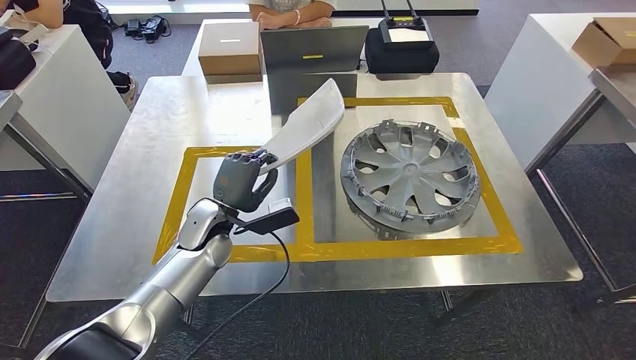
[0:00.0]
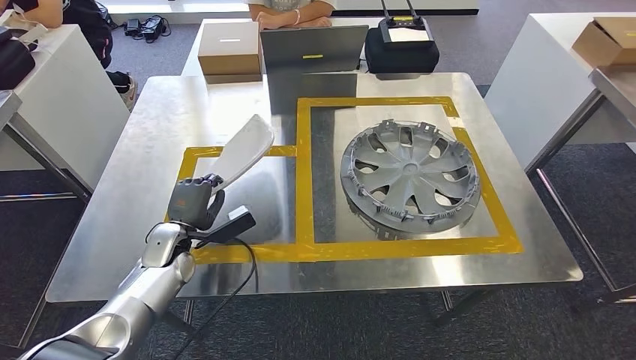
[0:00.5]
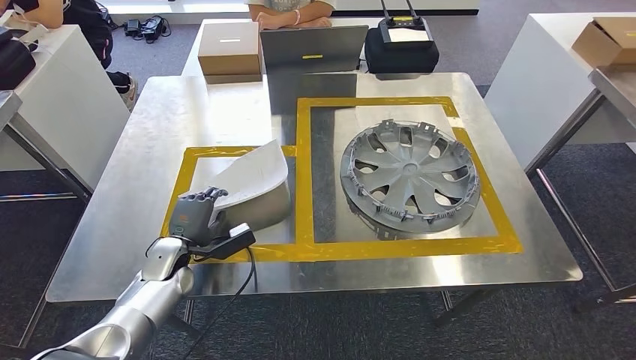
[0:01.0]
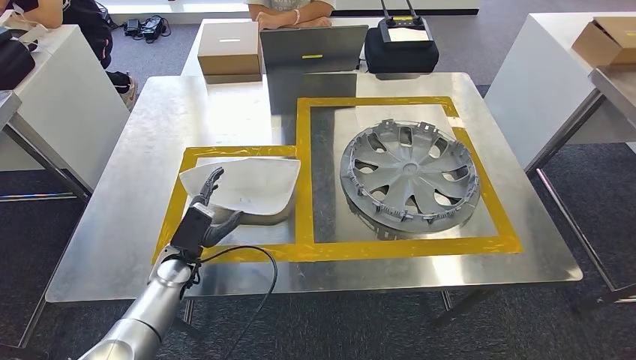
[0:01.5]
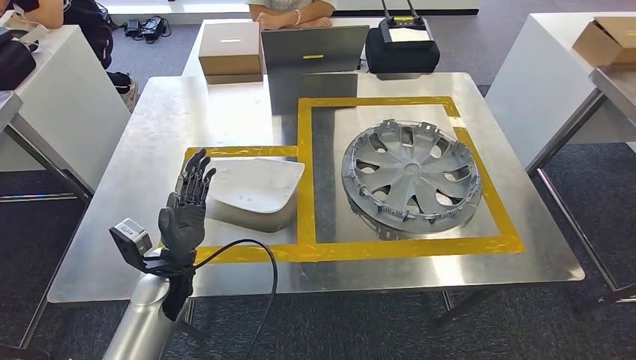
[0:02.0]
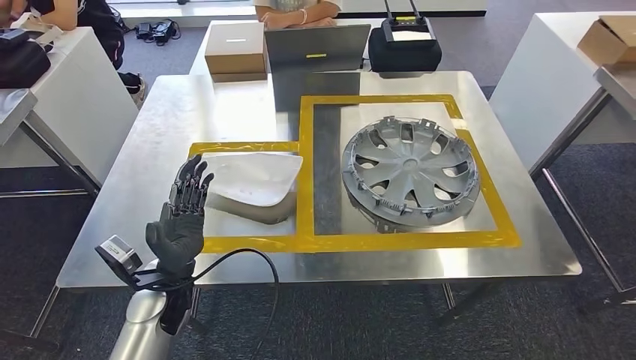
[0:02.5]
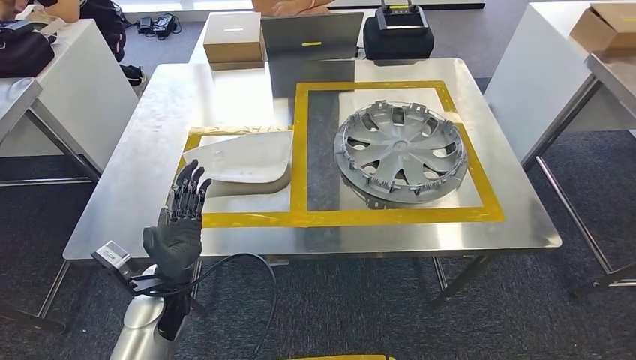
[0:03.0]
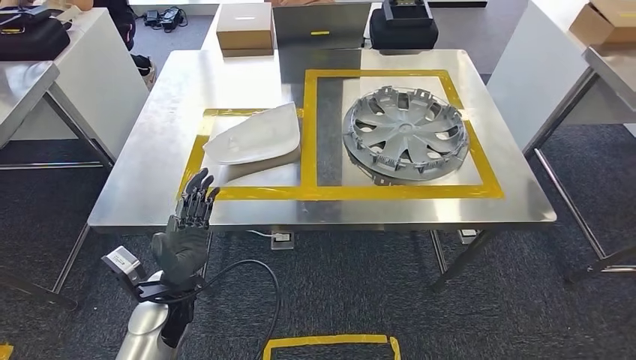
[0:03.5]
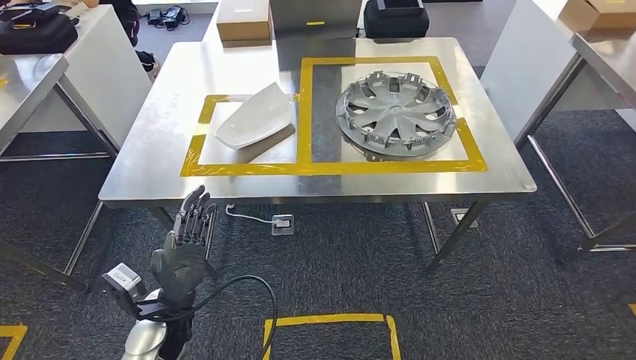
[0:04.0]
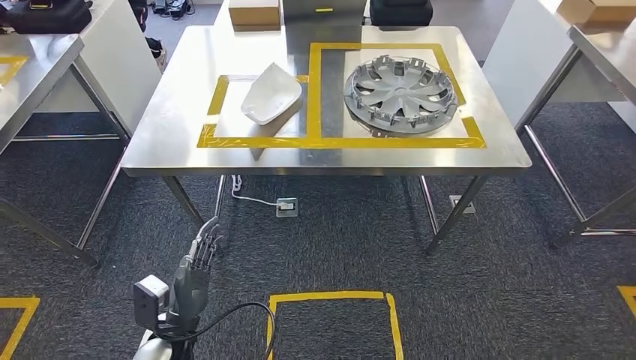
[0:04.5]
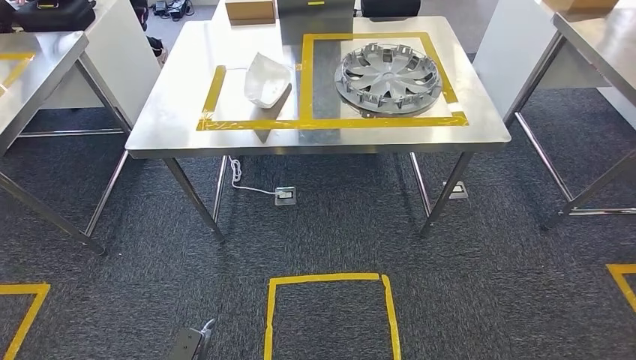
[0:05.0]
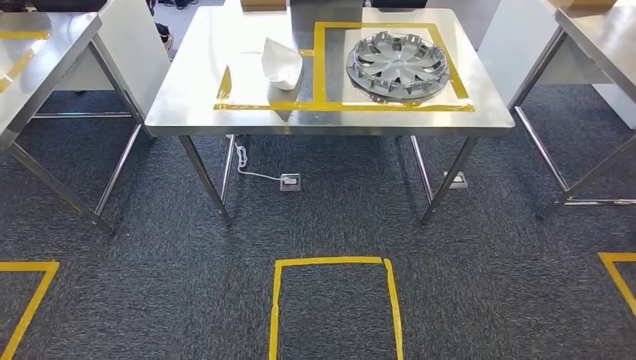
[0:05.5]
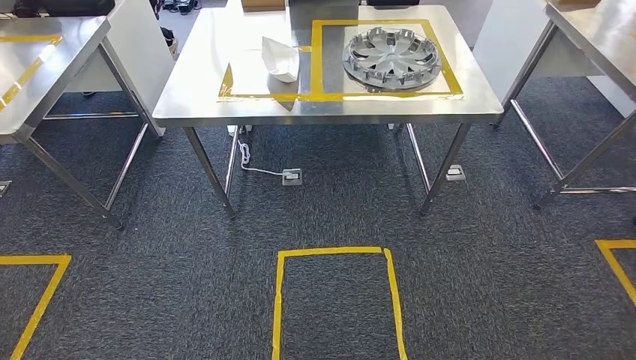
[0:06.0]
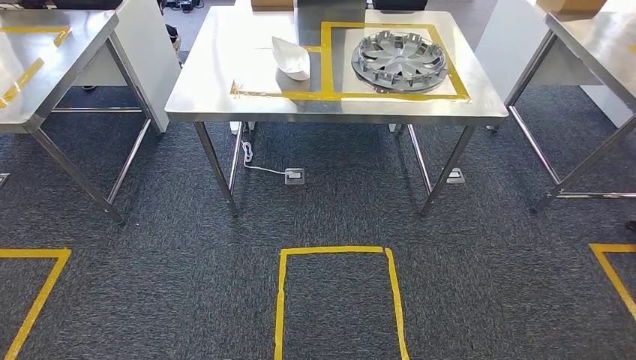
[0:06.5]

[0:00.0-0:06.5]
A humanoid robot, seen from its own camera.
Step, 0:00.0 to 0:02.0: Insert the small parts into the corresponding holes on the workbench.
Step, 0:02.5 to 0:06.5: Move to the initial position at the workbench.
0:00.0 to 0:02.0: The left hand is displaced backward and to the left by approximately 10 cm.
